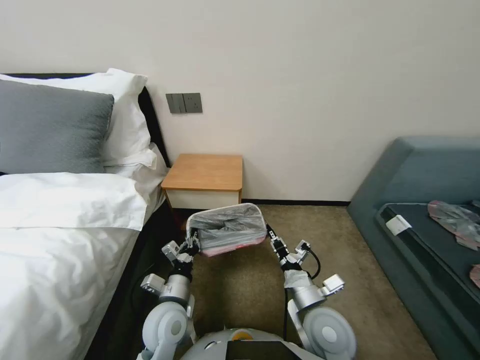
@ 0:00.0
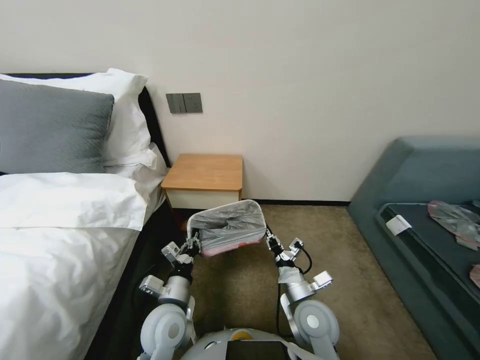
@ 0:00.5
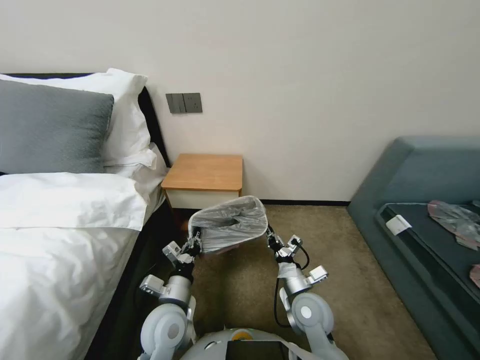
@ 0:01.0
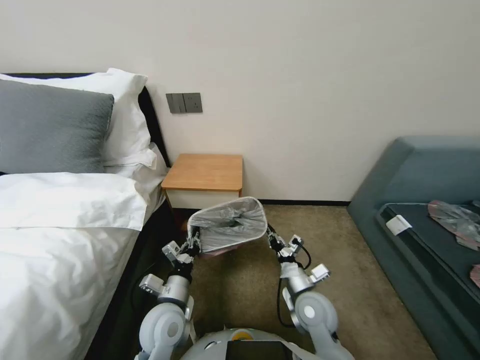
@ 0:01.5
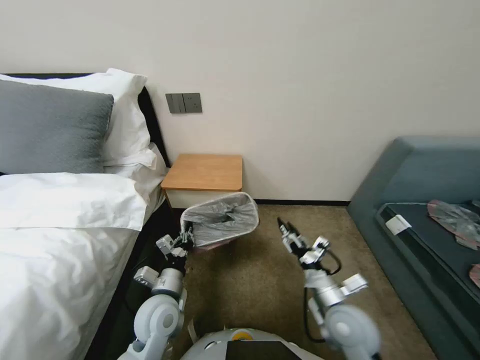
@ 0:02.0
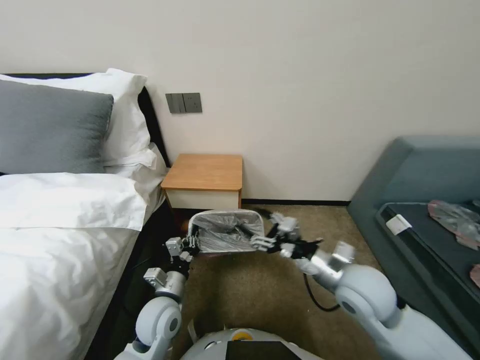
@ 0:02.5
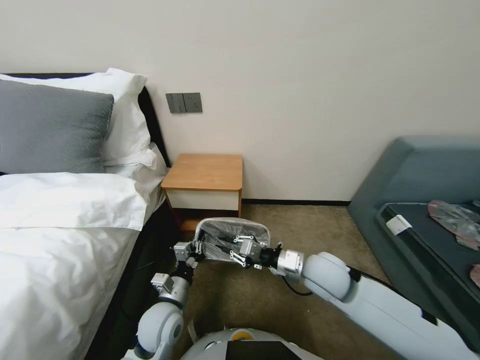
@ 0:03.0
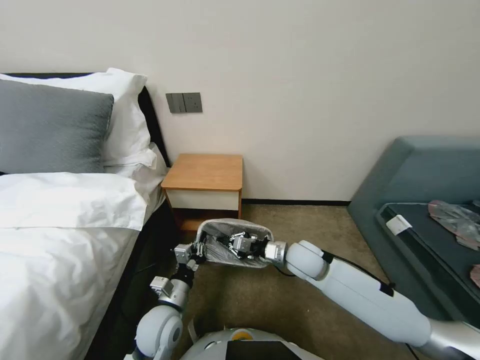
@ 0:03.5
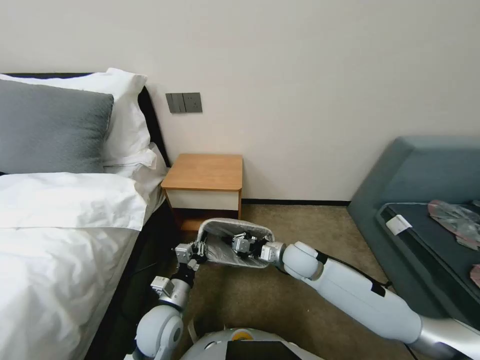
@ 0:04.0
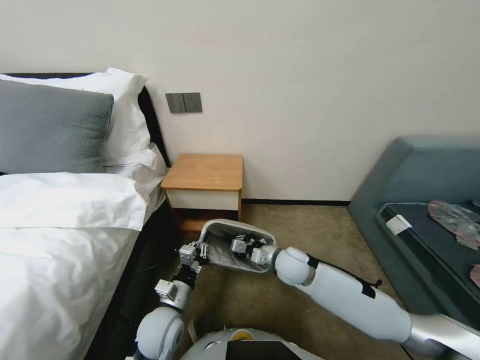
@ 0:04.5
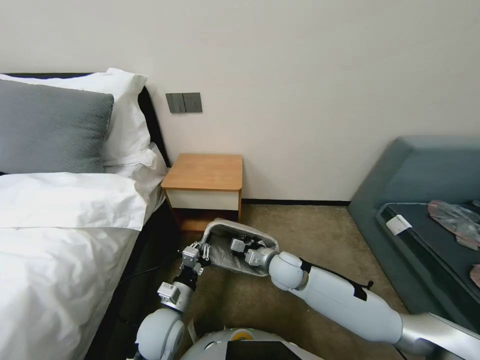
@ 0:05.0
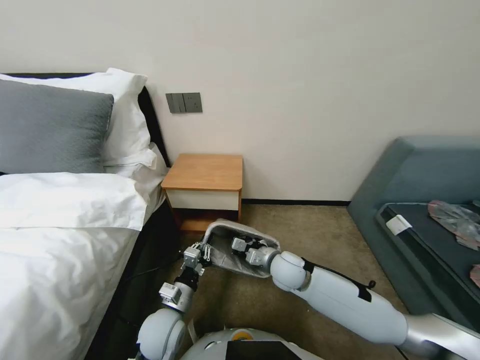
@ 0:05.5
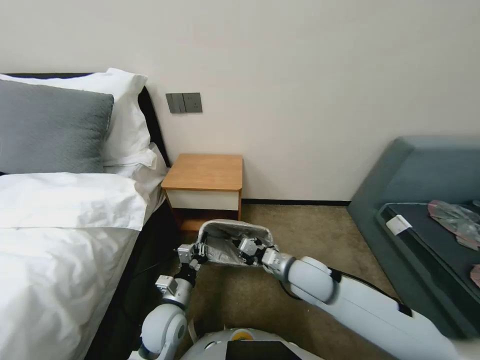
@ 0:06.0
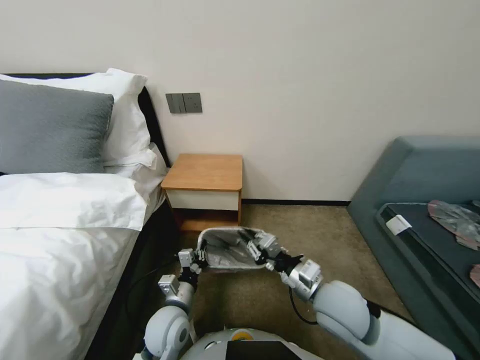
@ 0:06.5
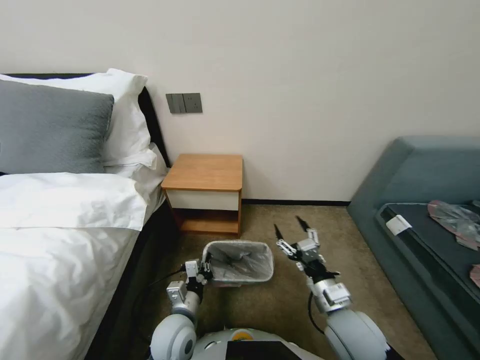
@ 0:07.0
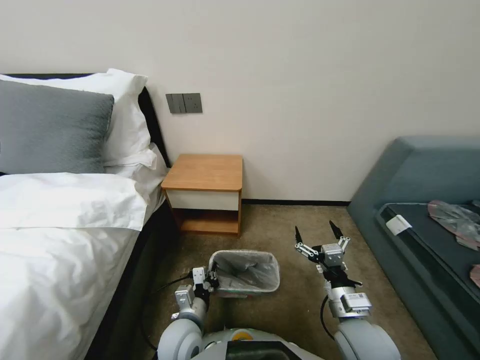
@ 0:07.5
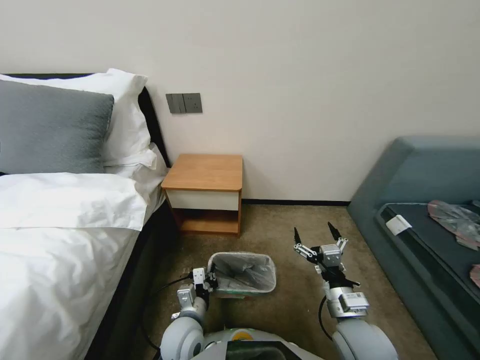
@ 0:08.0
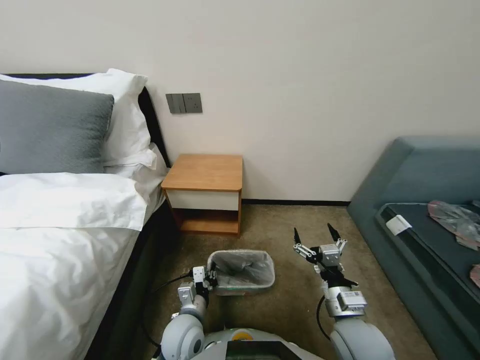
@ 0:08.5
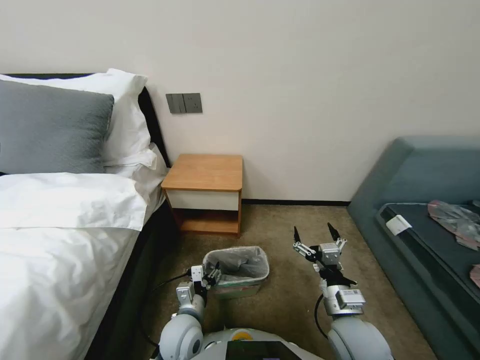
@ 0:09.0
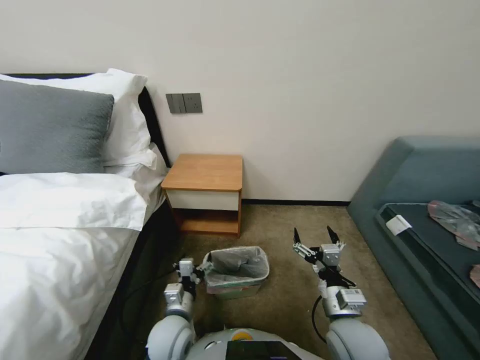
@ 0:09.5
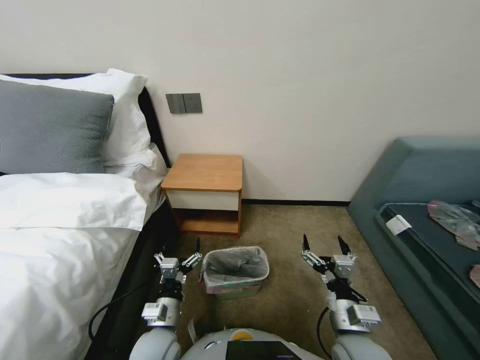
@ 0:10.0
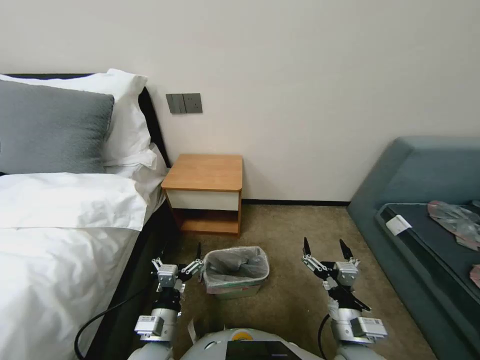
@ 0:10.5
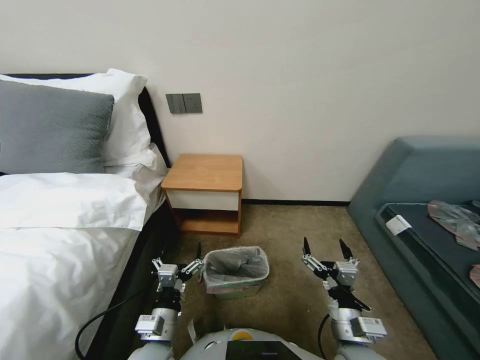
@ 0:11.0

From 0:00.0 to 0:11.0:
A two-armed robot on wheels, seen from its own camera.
Task of the whole recording: Pick up the garbage bag from the table and place it over the trash can.
From 0:00.0 to 0:02.0: The right gripper changes place by some 5 cm, and opens its fingers.
From 0:02.0 to 0:03.5: The right gripper goes approximately 15 cm forward, and closes up.
From 0:03.5 to 0:05.5: The right gripper is displaced to the left by roughly 5 cm.
From 0:05.5 to 0:07.5: The right gripper goes roughly 20 cm backward and to the right, and opens.
From 0:07.5 to 0:09.0: The left gripper opens its fingers.
From 0:09.0 to 0:11.0: The left gripper goes some 5 cm backward, and opens.

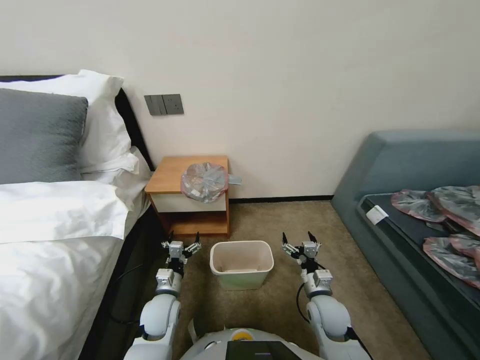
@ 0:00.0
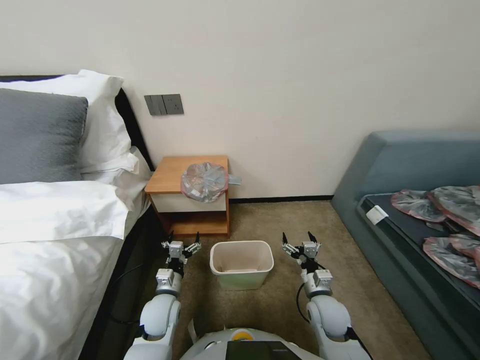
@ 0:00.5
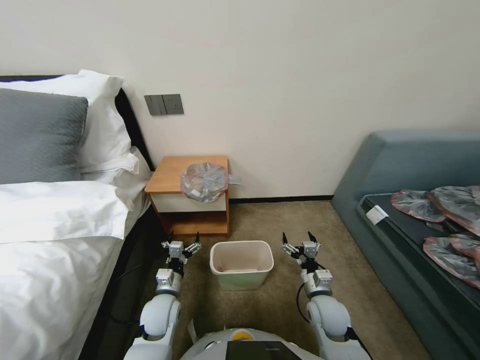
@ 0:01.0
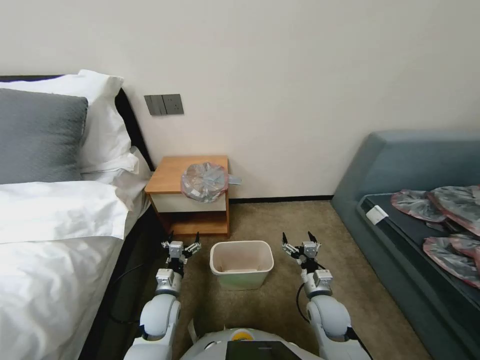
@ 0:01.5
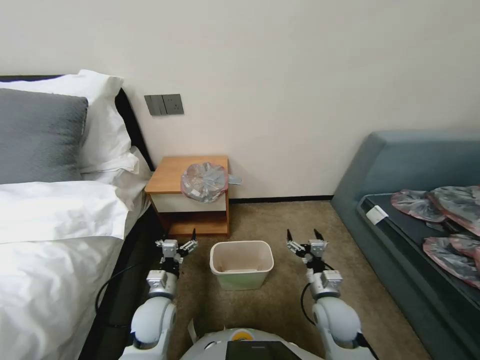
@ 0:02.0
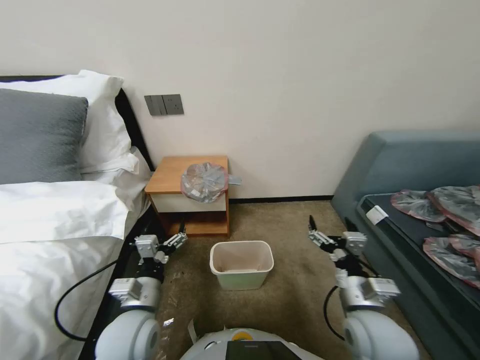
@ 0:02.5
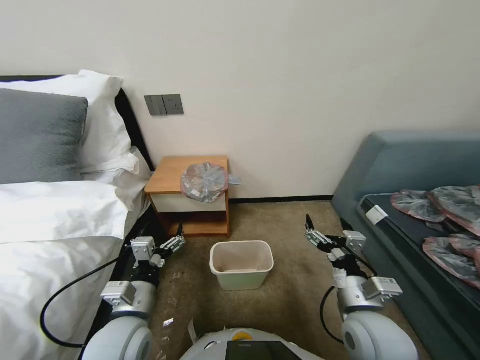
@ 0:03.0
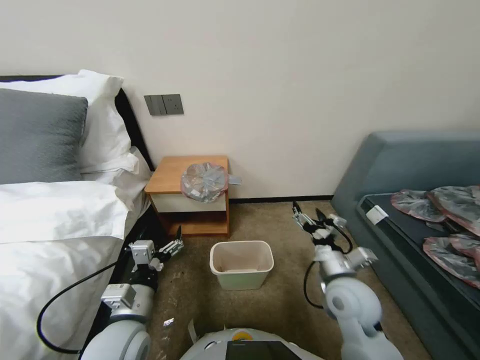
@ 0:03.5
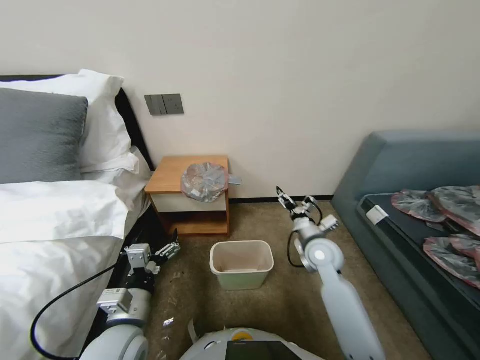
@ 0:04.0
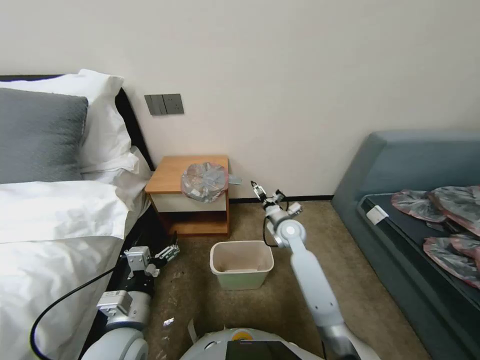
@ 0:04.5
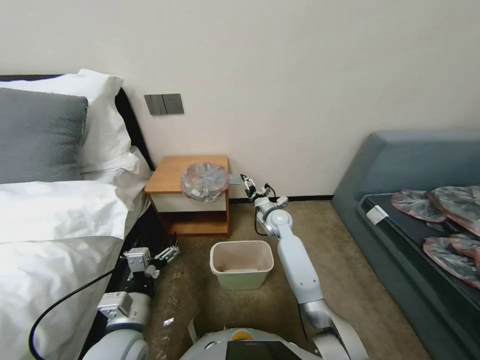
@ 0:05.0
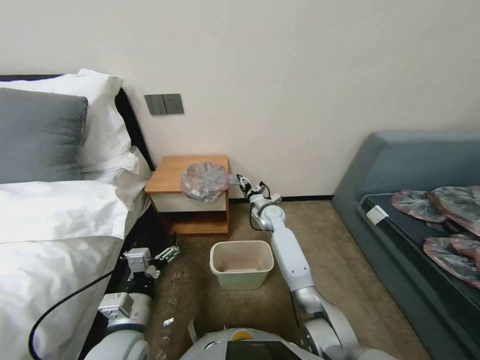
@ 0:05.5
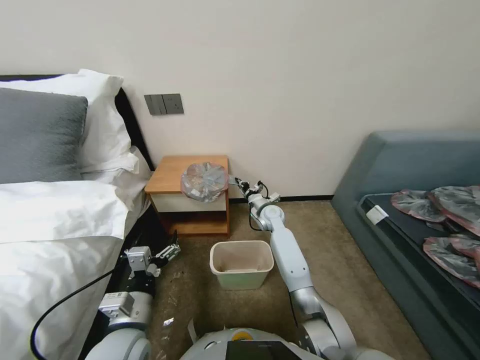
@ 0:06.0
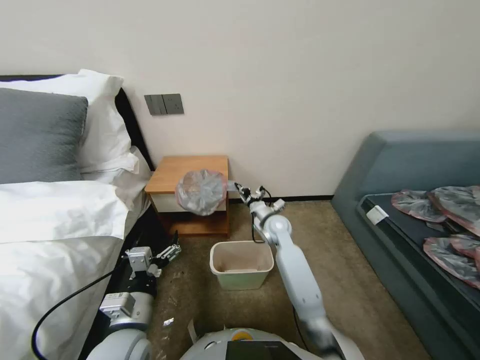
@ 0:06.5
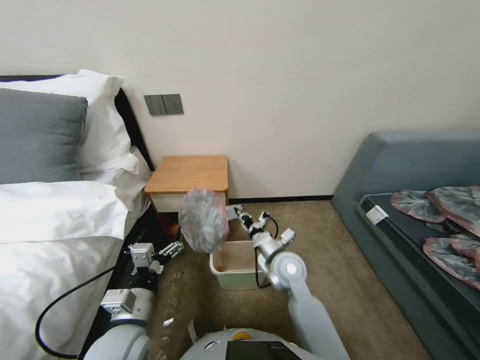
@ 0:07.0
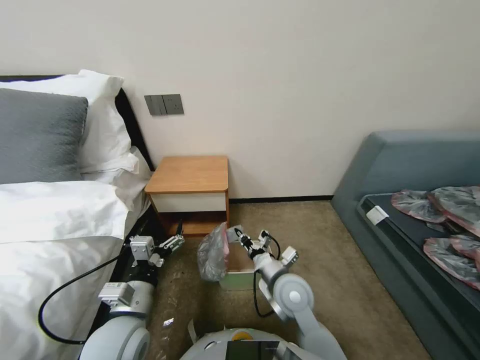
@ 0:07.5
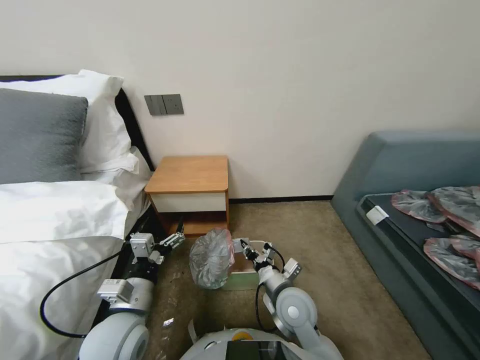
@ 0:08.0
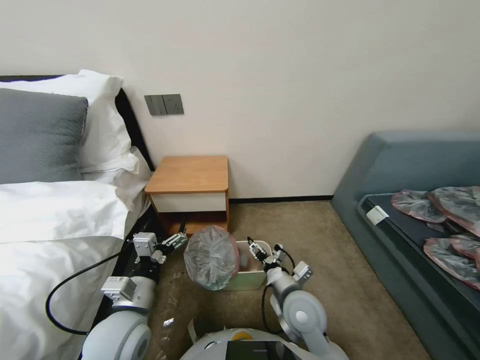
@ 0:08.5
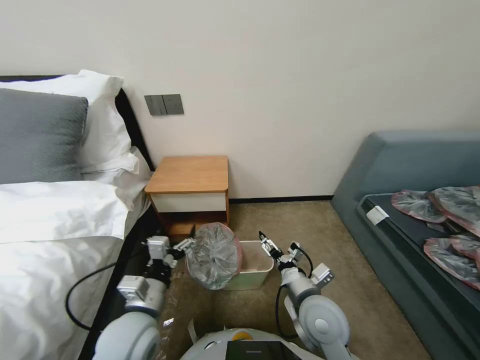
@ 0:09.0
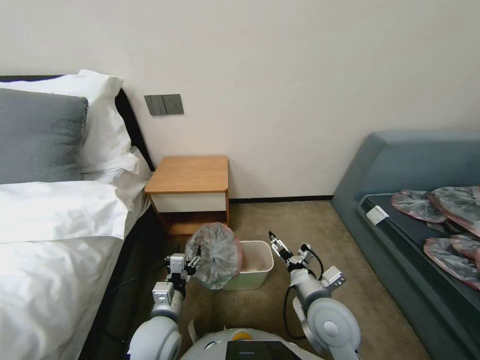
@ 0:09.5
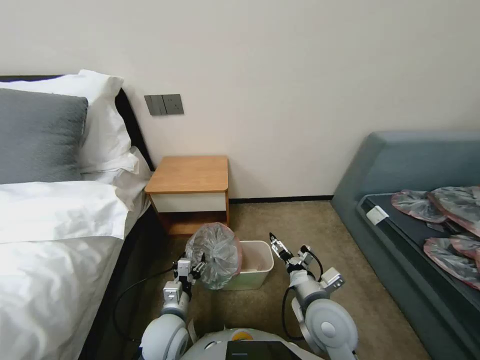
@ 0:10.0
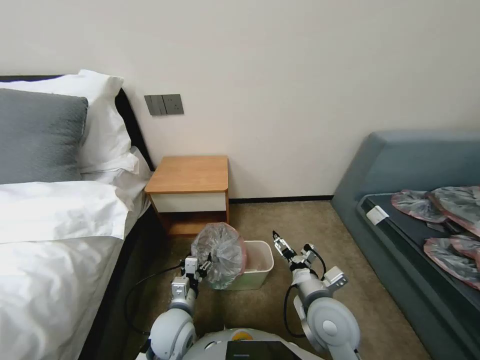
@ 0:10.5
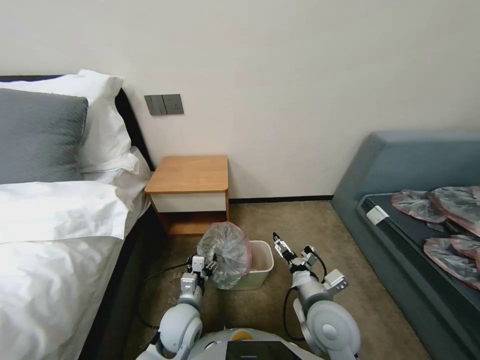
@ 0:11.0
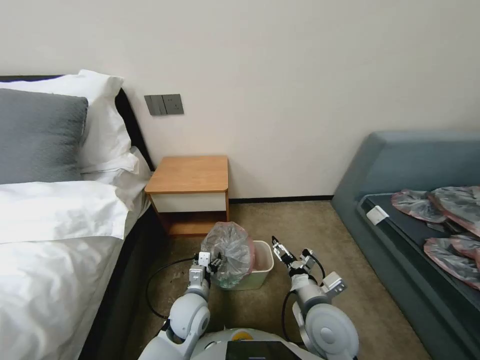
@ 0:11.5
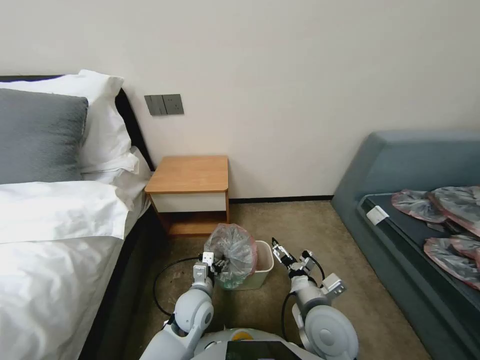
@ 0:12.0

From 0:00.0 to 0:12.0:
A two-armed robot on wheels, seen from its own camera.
Task of the whole recording: Pick up the garbage bag from the table and place it over the trash can.
From 0:02.0 to 0:04.0: The right gripper goes about 15 cm forward and upward. Meanwhile the left gripper shifts about 15 cm upward and backward.
From 0:04.0 to 0:06.0: The right gripper is displaced forward and to the left by about 25 cm, and closes.
From 0:06.0 to 0:08.0: The right gripper is displaced backward by roughly 30 cm.
From 0:08.0 to 0:10.0: The left gripper moves downward, some 10 cm, while the right gripper moves to the right, roughly 5 cm, and opens its fingers.
From 0:10.0 to 0:12.0: The left gripper shifts roughly 10 cm forward and to the right.

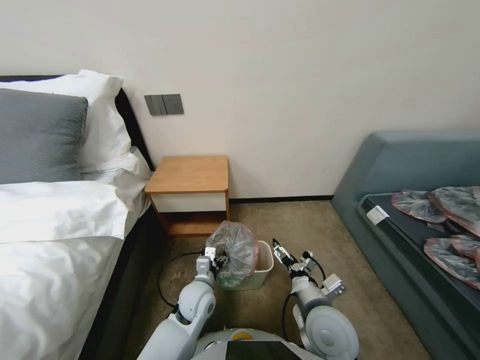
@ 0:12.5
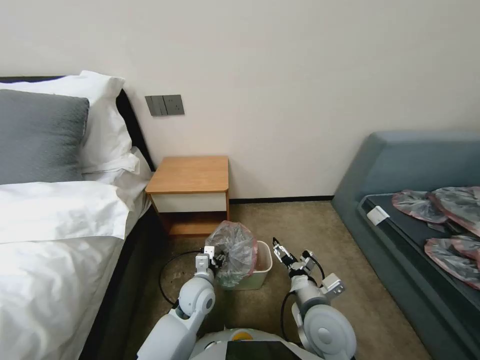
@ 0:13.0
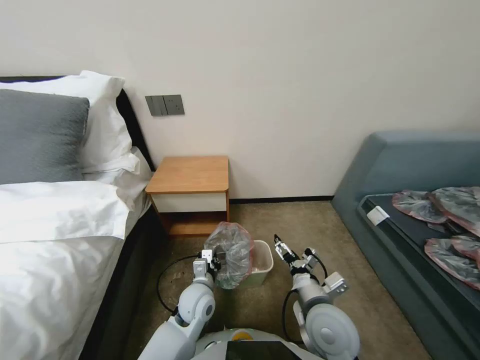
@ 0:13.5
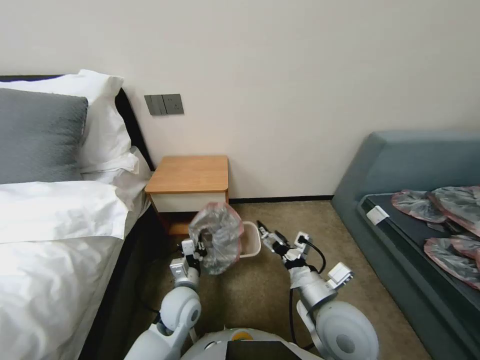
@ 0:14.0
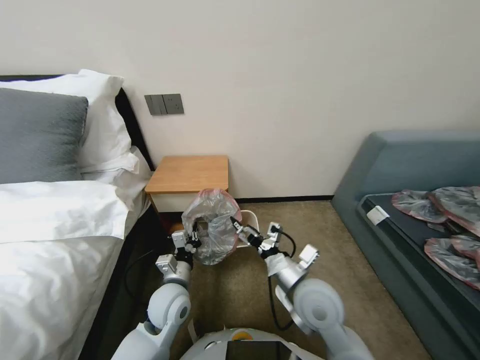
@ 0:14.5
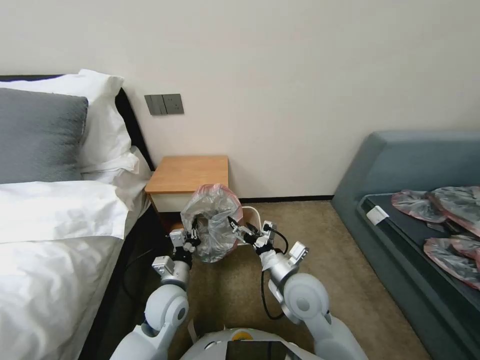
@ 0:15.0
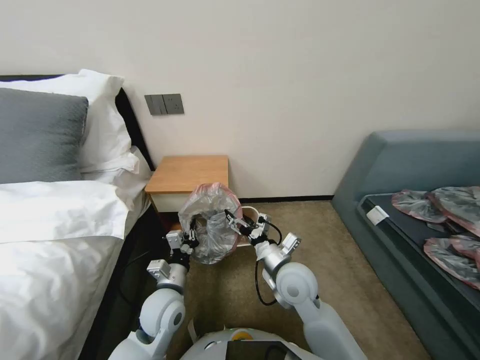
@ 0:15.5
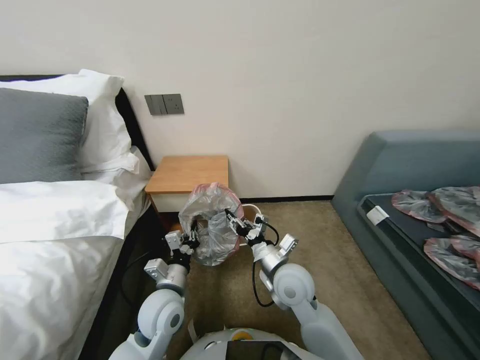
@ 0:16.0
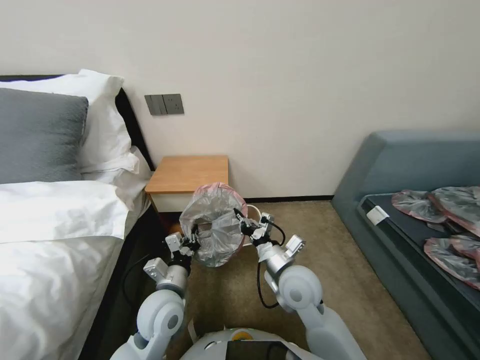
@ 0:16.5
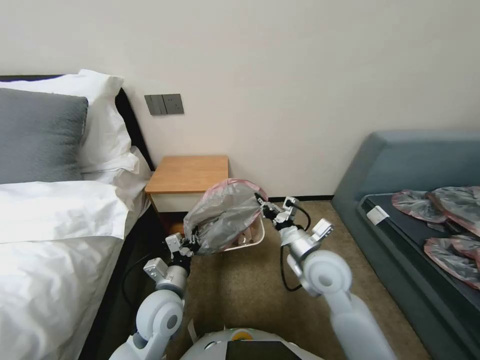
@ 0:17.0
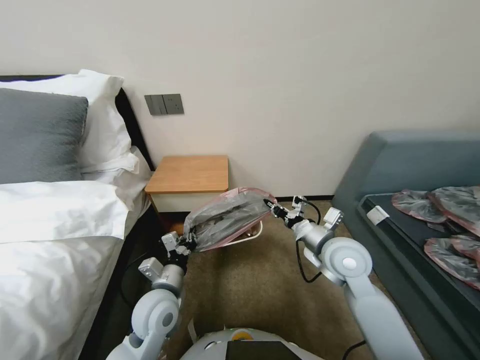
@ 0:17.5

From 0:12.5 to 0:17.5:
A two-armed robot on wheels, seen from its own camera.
Task of the whole recording: Pick up the garbage bag from the table and place it over the trash can.
From 0:12.5 to 0:15.0: The left gripper moves to the left, some 5 cm, and closes its fingers, while the right gripper moves forward, roughly 5 cm.
From 0:15.0 to 0:17.5: The right gripper shifts approximately 10 cm to the right, upward and forward, and closes its fingers.
